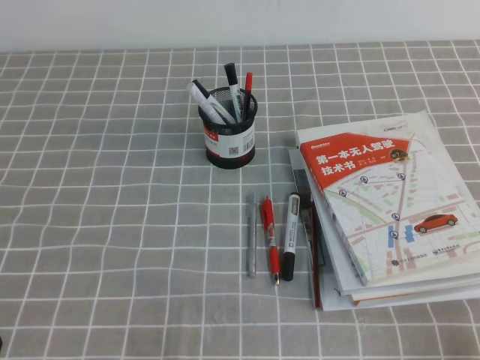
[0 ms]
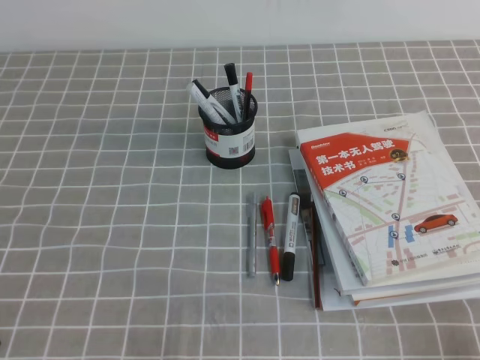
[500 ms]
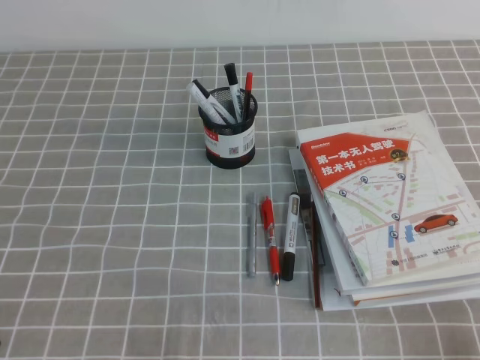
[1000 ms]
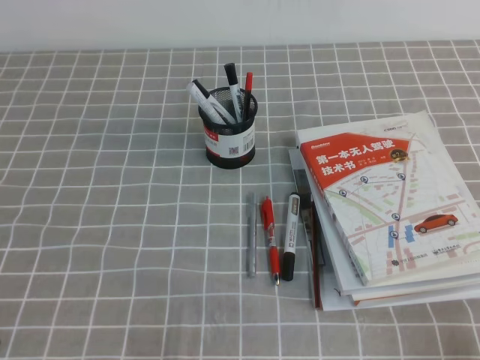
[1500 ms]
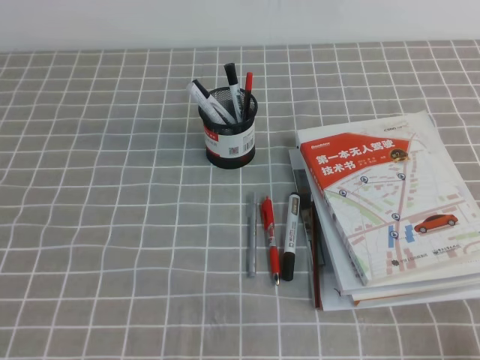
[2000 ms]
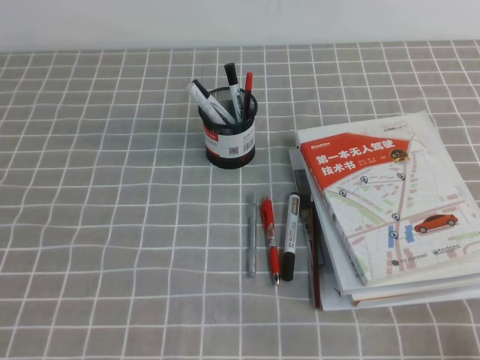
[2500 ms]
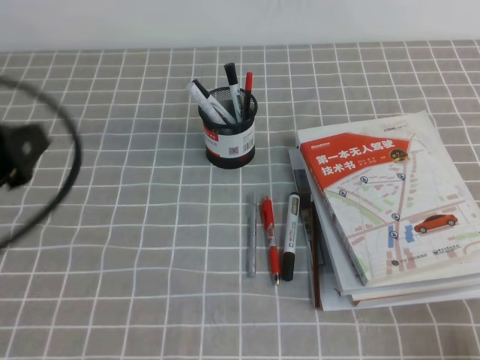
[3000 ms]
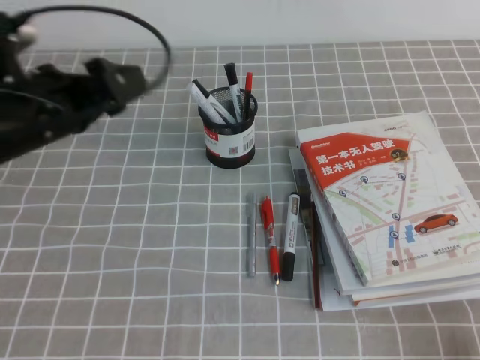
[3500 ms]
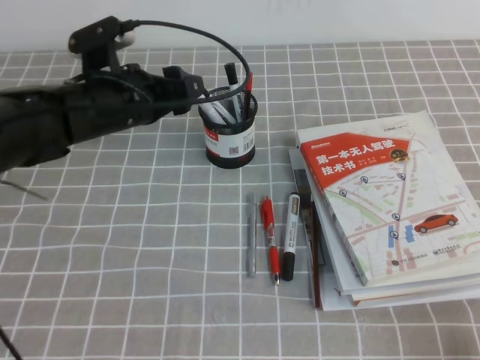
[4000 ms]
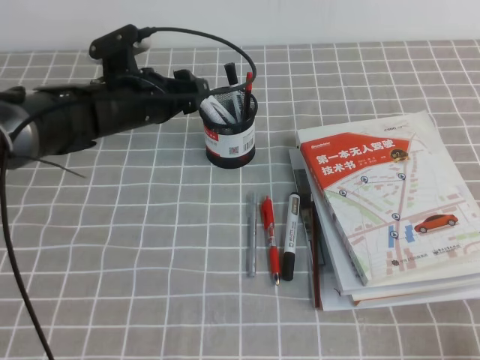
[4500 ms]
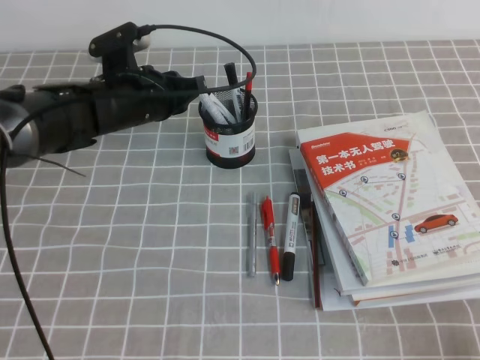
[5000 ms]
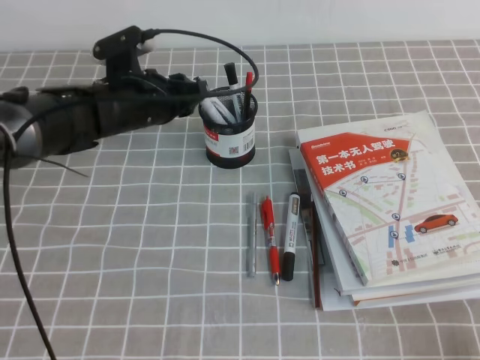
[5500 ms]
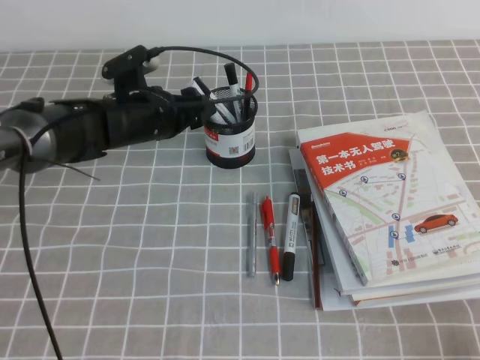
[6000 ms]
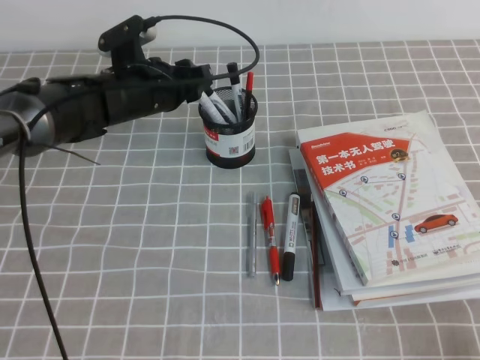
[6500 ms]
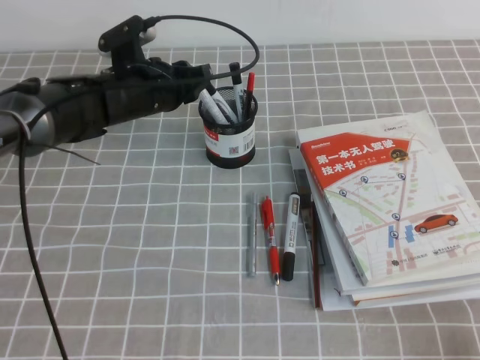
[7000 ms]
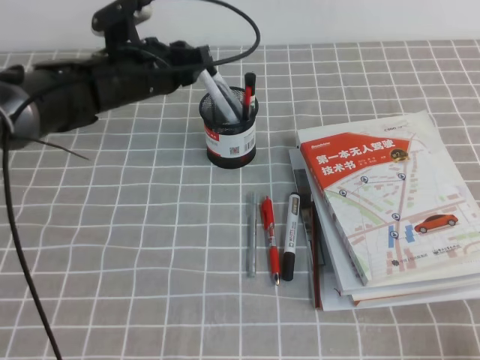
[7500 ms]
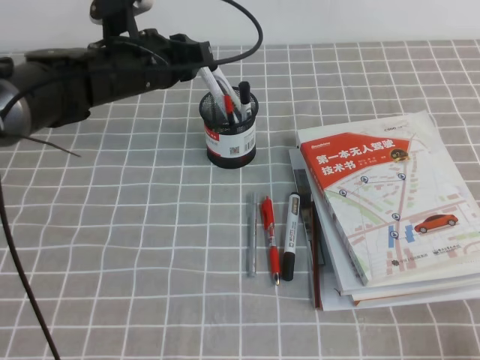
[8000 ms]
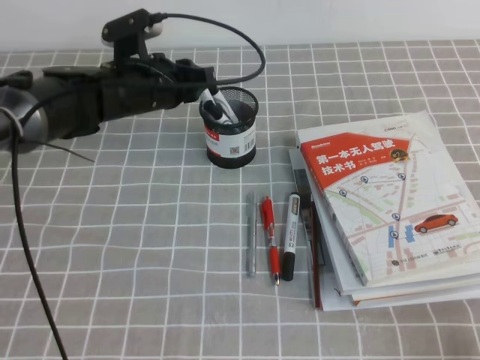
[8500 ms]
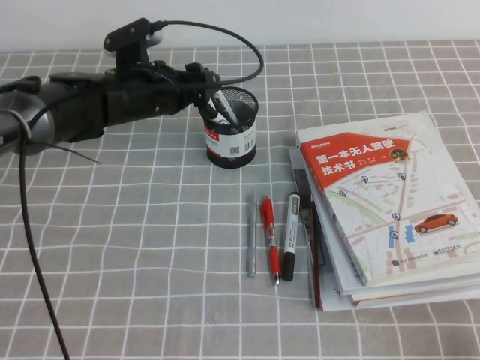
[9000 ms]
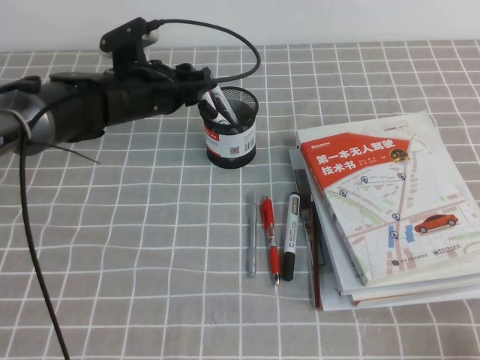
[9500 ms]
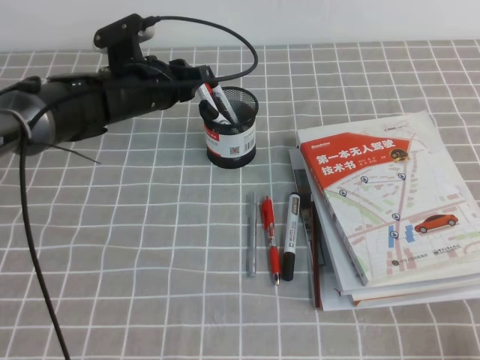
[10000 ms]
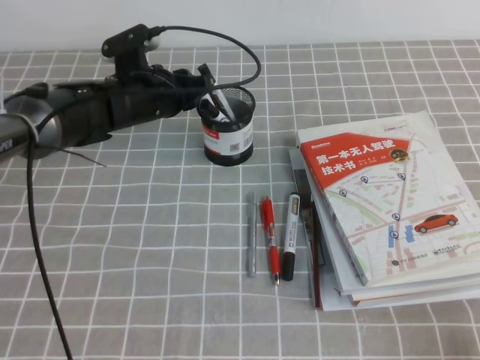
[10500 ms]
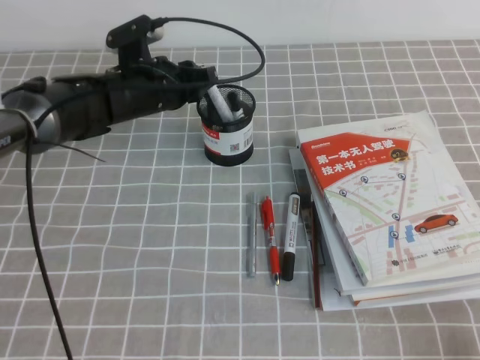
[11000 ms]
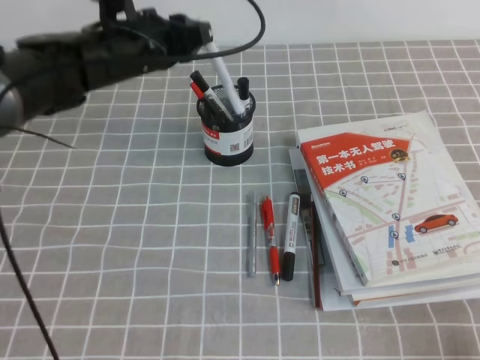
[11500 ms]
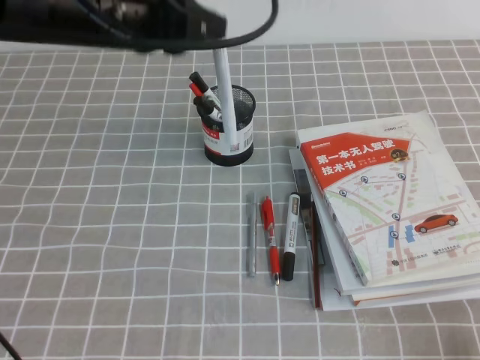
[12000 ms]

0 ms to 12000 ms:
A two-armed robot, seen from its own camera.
2000 ms to 4000 ms: The left gripper shifts roughly 30 cm forward and to the right, and opens.
4000 ms to 6000 ms: The left gripper moves forward and downward, some 10 cm, and closes, then opens again.
6000 ms to 8000 ms: The left gripper moves upward, about 5 cm, and closes its fingers.
8000 ms to 10000 ms: The grippers move only a little.
10000 ms to 12000 ms: The left gripper heads upward and backward, covering roughly 15 cm.

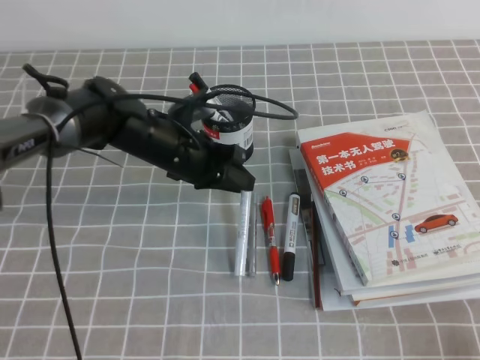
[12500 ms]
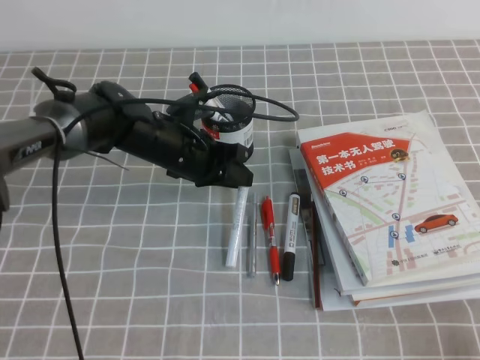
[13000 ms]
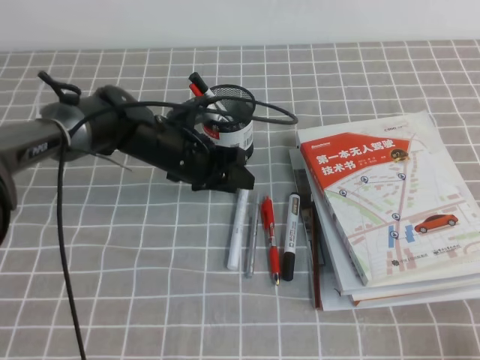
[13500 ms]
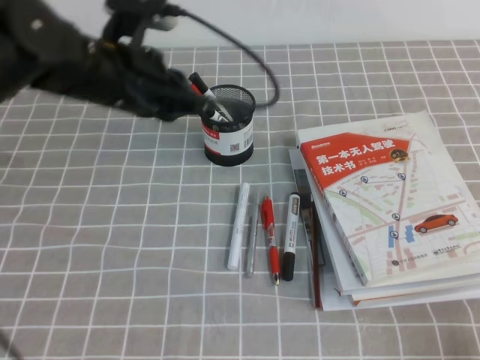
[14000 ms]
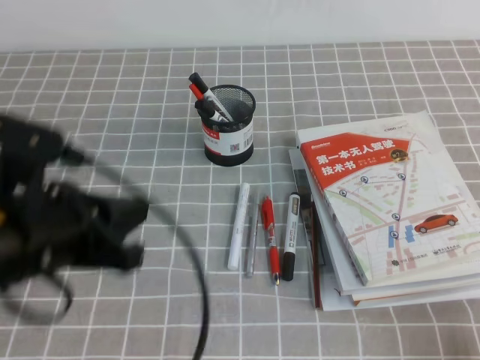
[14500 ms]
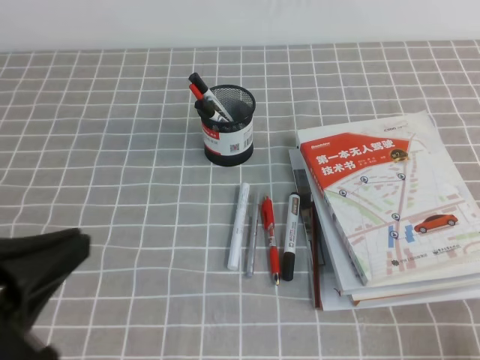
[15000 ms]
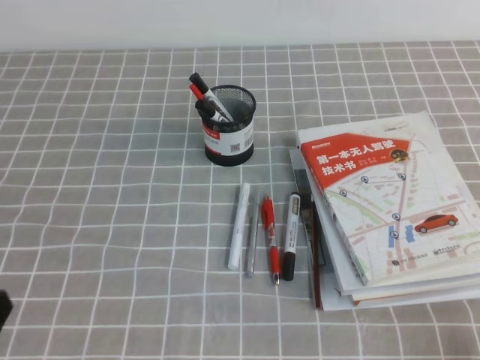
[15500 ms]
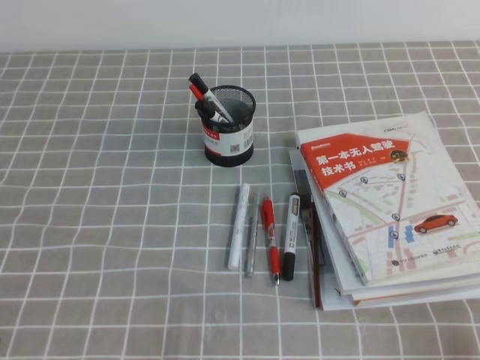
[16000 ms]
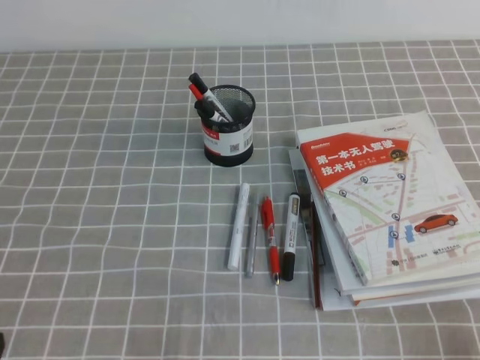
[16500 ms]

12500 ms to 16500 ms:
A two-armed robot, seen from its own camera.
Step, 12500 ms to 16500 ms: Pick up the pen from the pen holder.
12500 ms to 14500 ms: The left gripper is displaced backward, upward and to the left by some 20 cm.
14500 ms to 16500 ms: The left gripper heads backward, downward and to the left, covering approximately 25 cm.

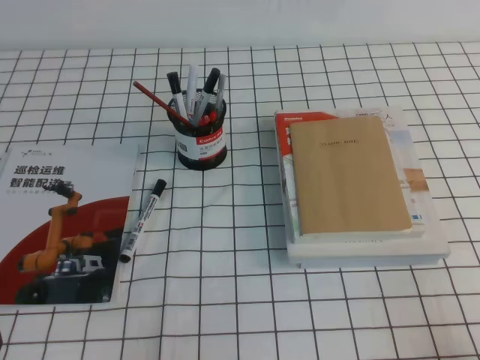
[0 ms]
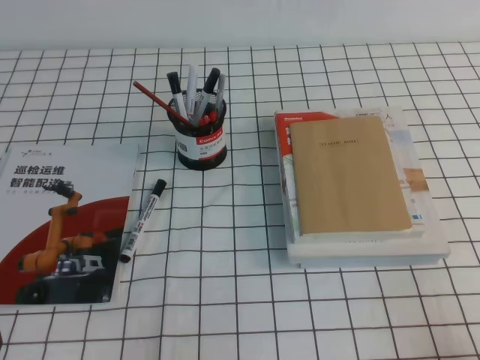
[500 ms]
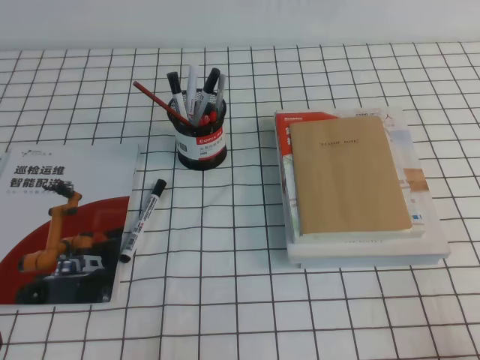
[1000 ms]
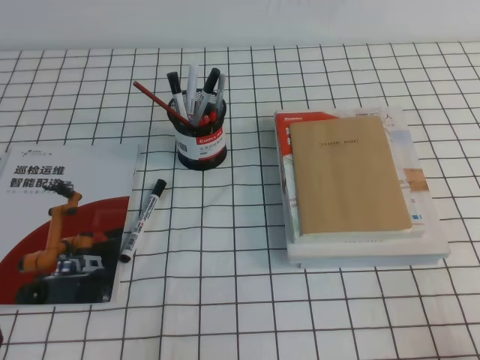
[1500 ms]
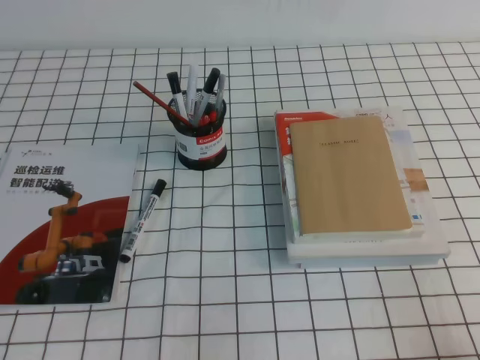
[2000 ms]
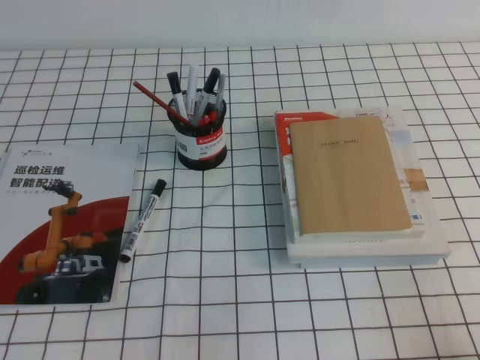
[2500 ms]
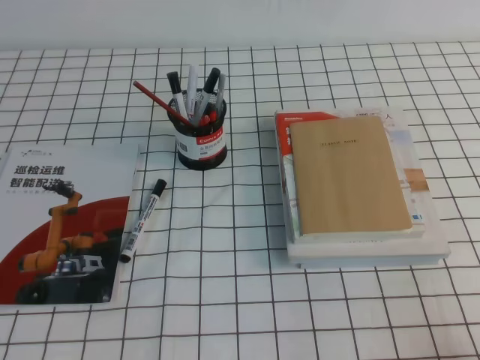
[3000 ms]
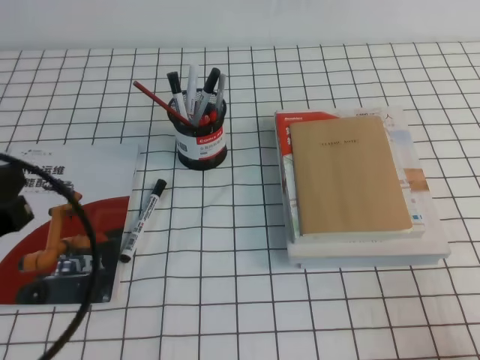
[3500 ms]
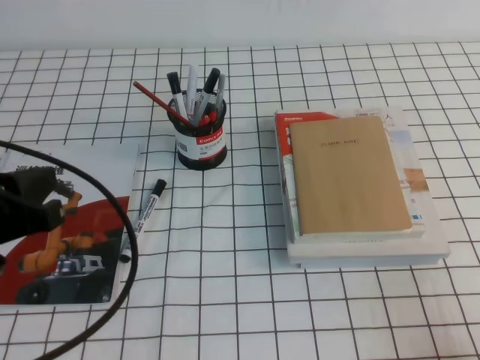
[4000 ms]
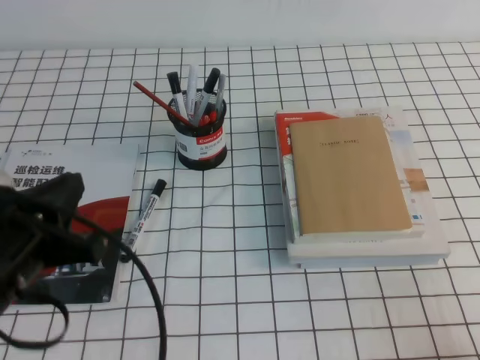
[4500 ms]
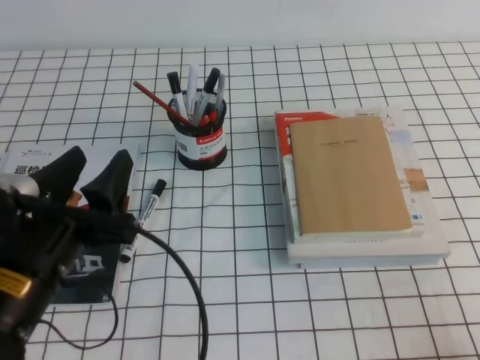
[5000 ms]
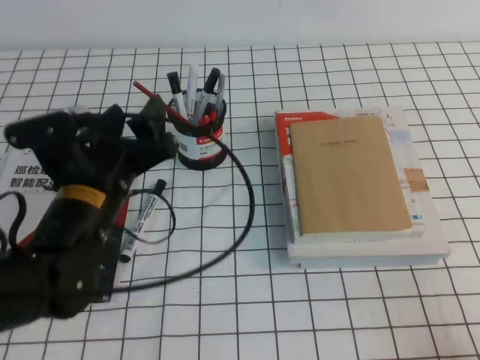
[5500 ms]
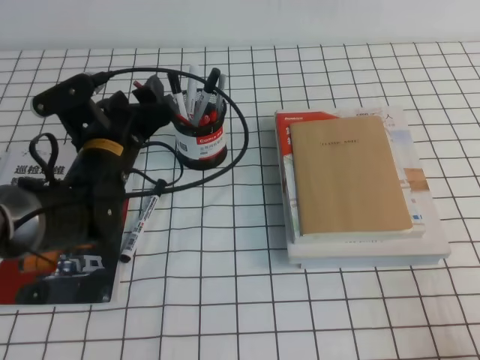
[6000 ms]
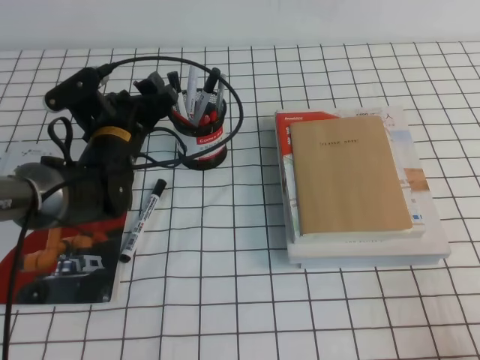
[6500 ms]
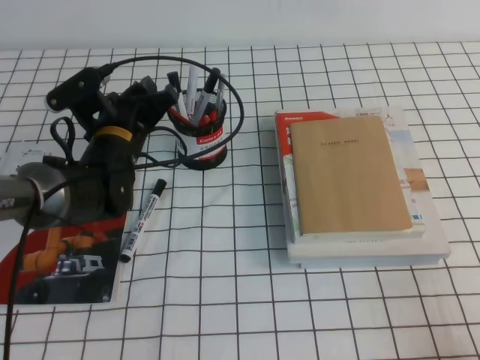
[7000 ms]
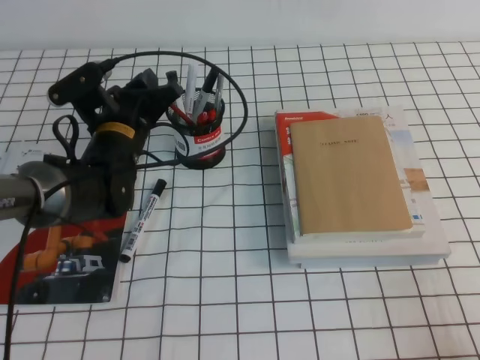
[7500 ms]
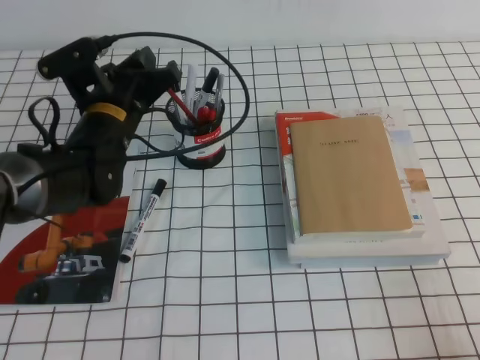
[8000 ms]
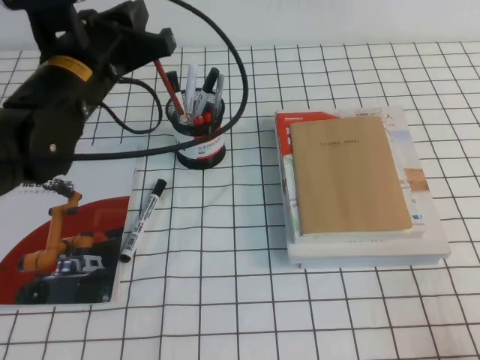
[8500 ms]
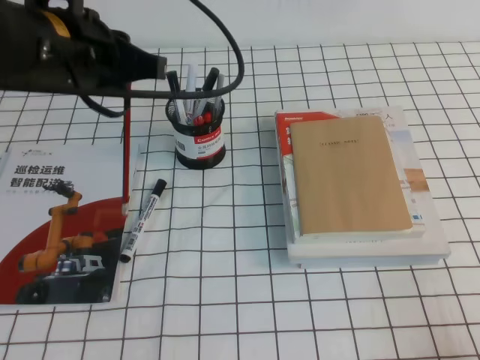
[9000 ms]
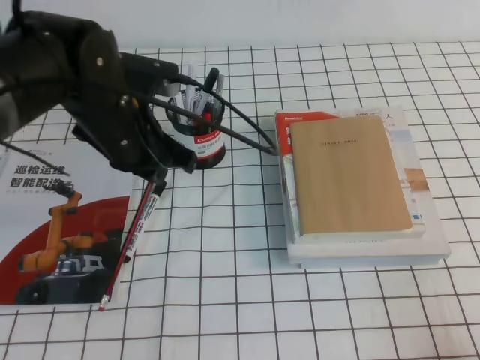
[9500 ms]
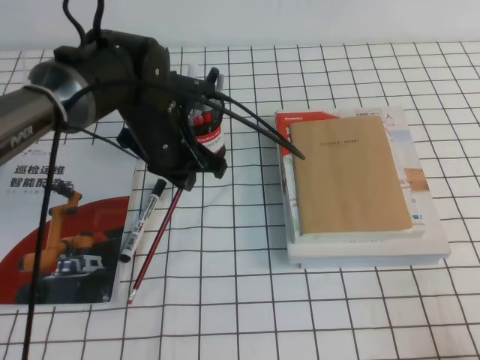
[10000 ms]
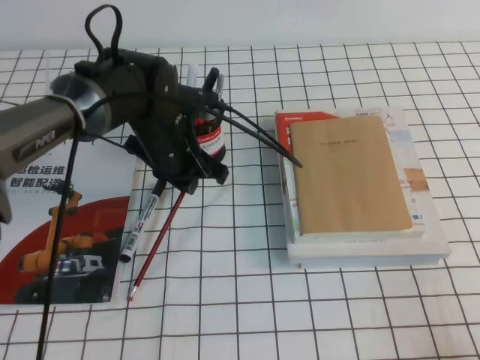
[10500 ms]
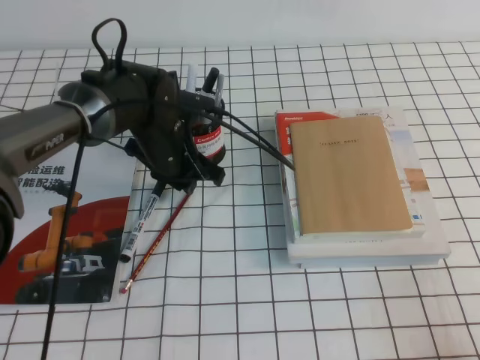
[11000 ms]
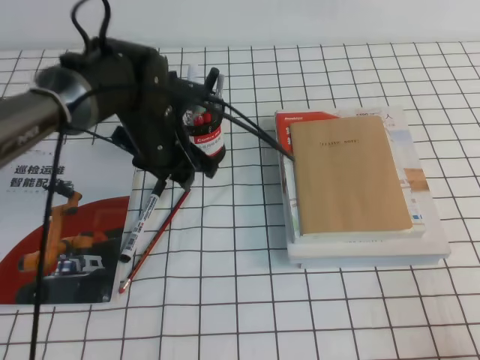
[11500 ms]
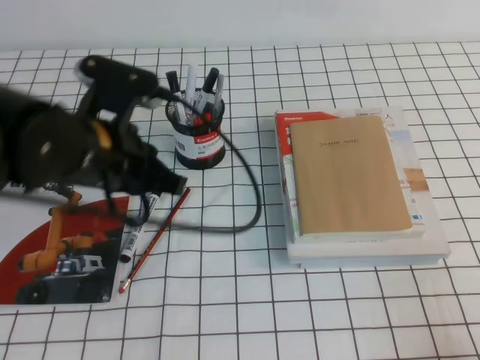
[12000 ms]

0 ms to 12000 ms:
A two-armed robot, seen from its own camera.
2000 ms to 4000 ms: The left gripper heads forward and upward, covering approximately 15 cm.
4000 ms to 6000 ms: The left gripper shifts about 20 cm forward, to the right and downward, and opens.
6000 ms to 8000 ms: The left gripper closes.
8000 ms to 10000 ms: The left gripper goes upward and returns, approximately 10 cm each way.
10000 ms to 12000 ms: The left gripper shifts roughly 10 cm backward and upward, and opens and closes again.
